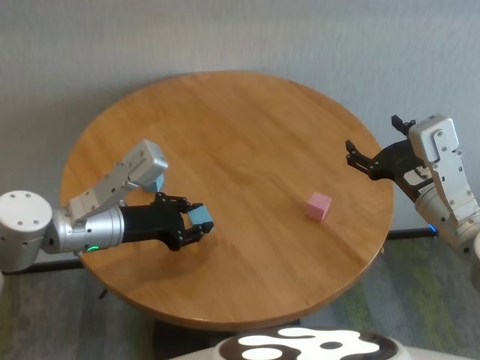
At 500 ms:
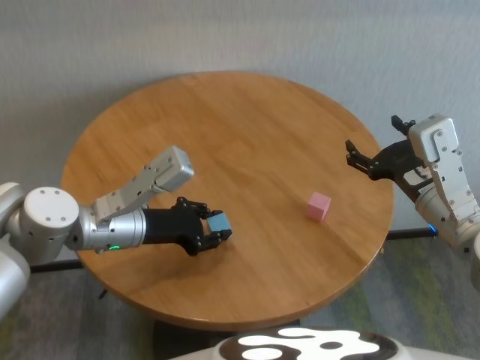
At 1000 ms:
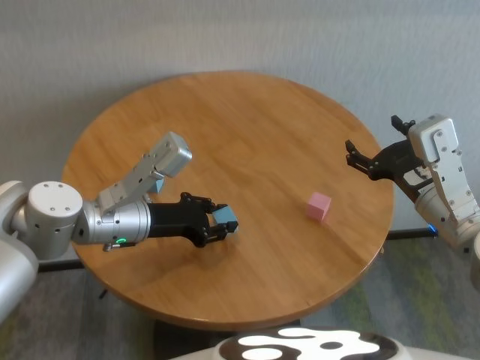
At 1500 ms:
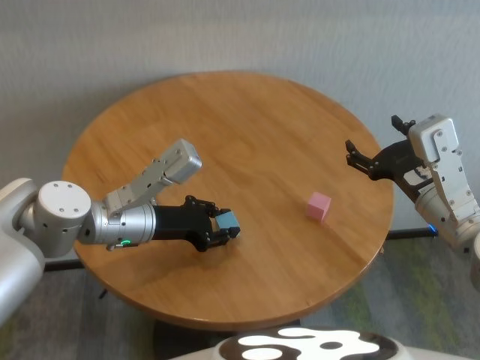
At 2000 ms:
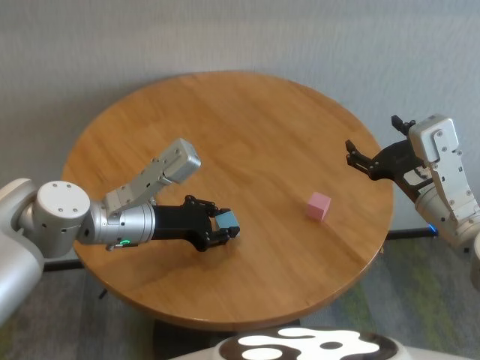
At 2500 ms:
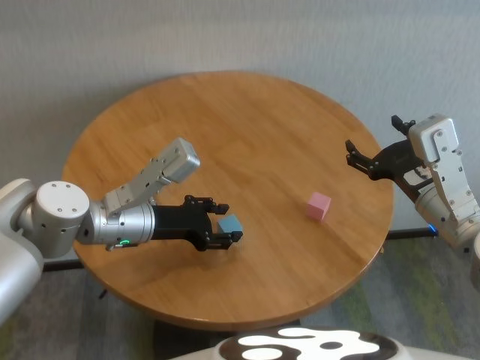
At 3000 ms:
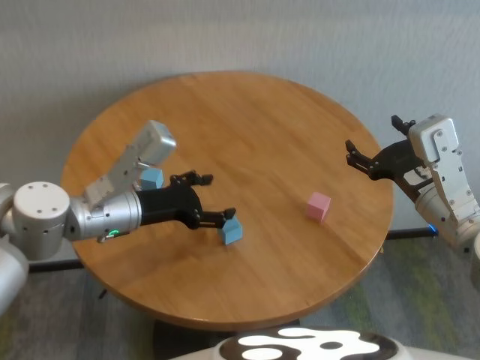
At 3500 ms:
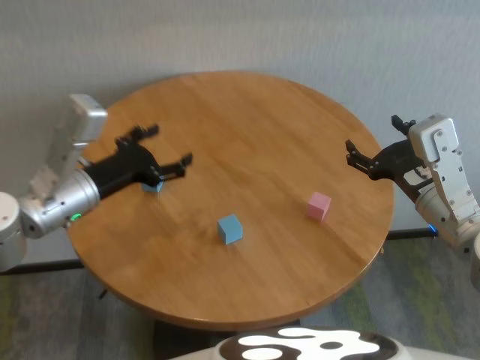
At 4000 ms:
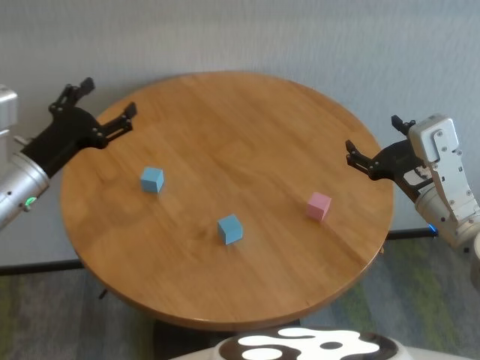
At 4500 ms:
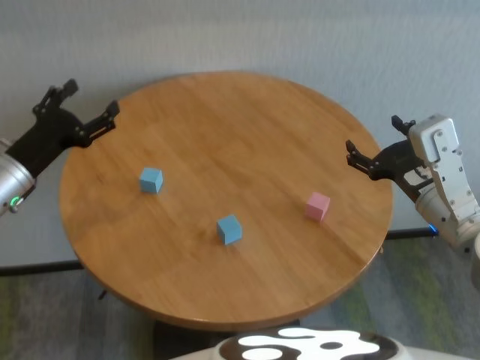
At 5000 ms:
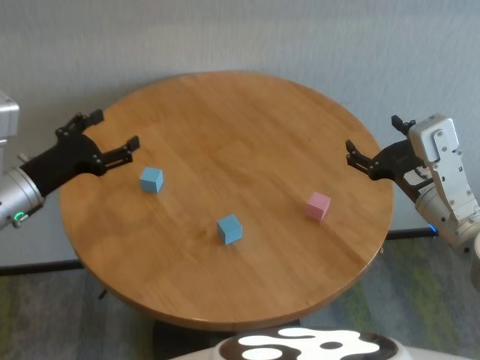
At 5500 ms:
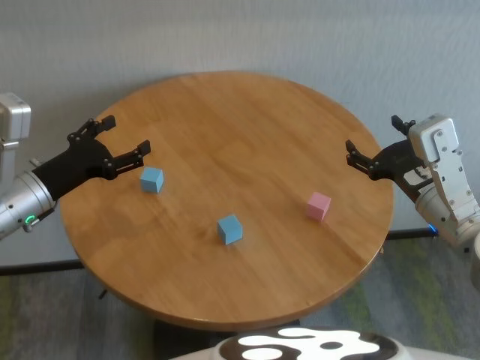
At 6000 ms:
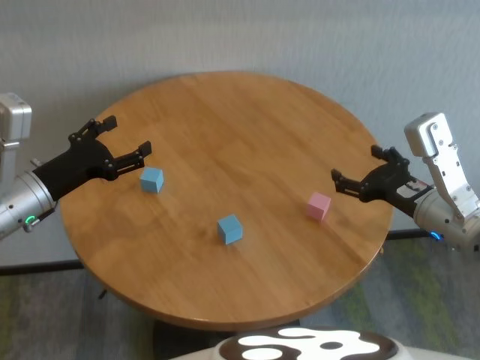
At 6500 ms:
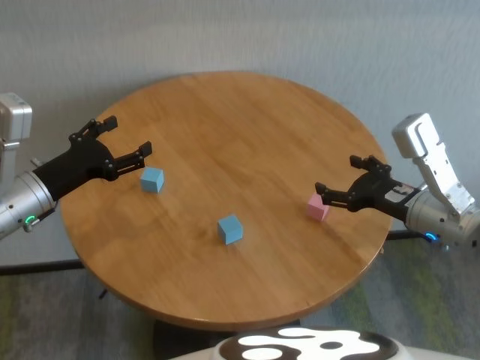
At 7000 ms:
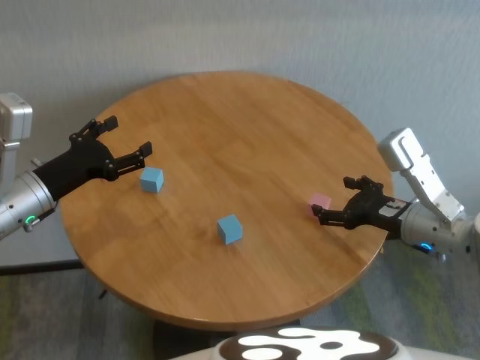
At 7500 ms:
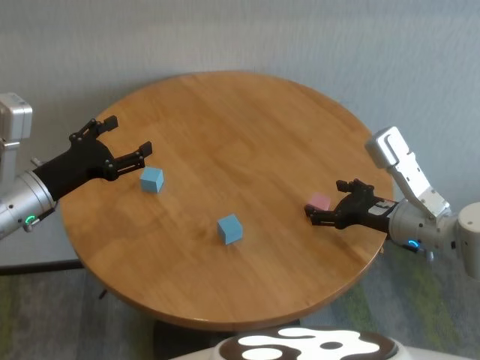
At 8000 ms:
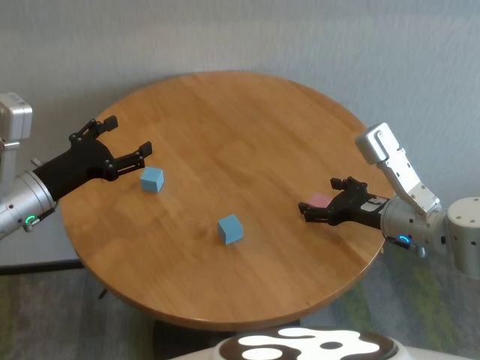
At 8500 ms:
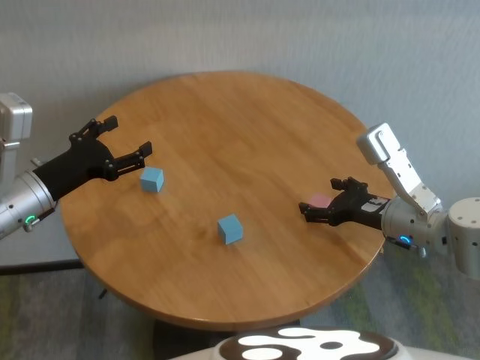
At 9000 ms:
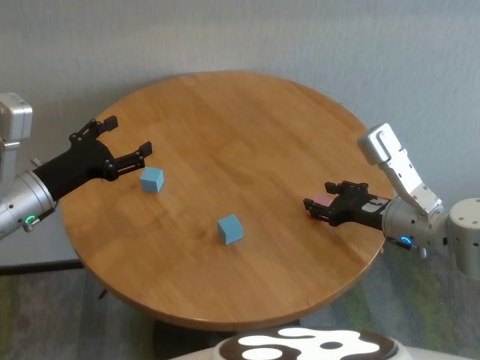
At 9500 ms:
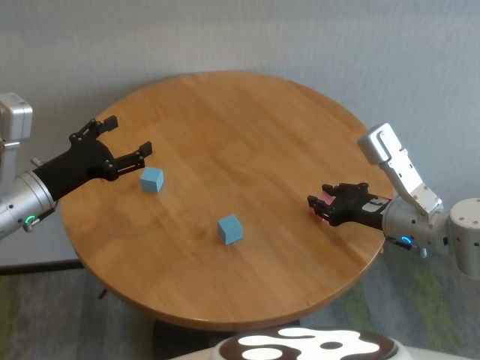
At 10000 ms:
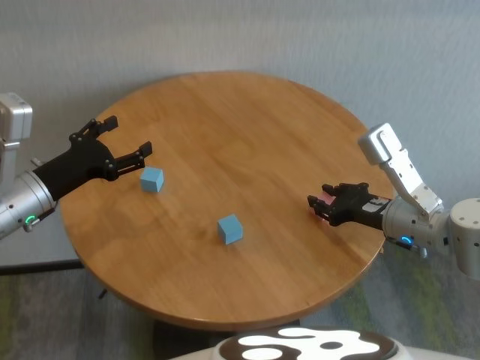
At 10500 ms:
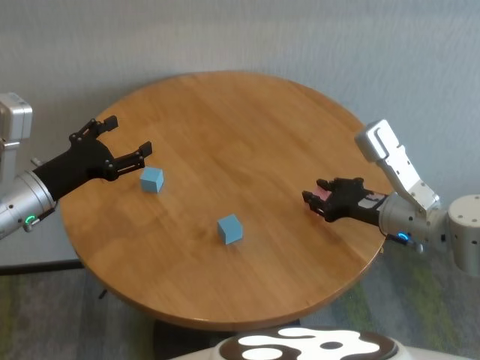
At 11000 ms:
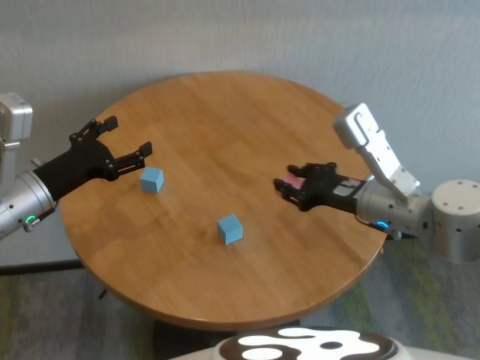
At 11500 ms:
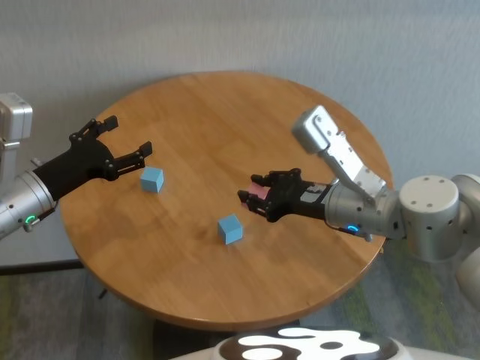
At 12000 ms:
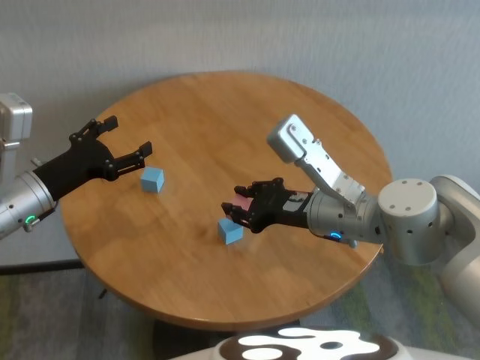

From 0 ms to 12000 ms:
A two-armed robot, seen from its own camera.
Task of the whole recording: stack building blocks on the table.
Step, from 0 ms to 2500 ms: Place the blue building block in the center of table with left gripper.

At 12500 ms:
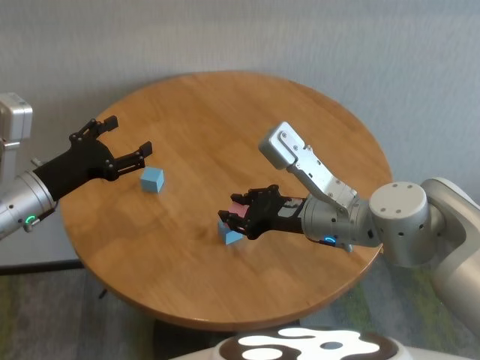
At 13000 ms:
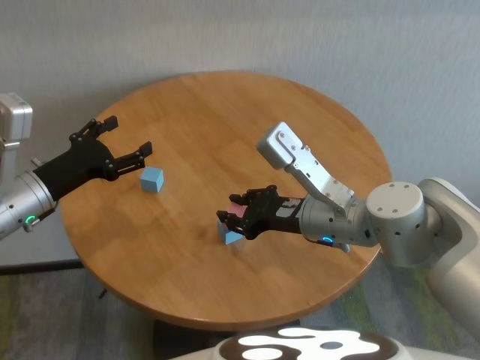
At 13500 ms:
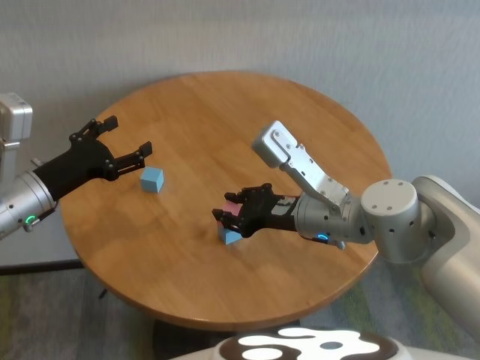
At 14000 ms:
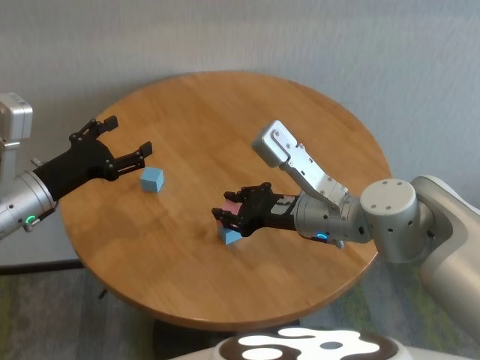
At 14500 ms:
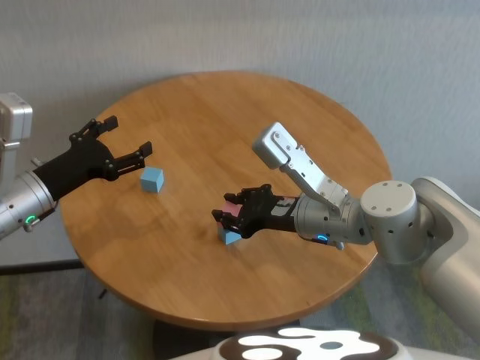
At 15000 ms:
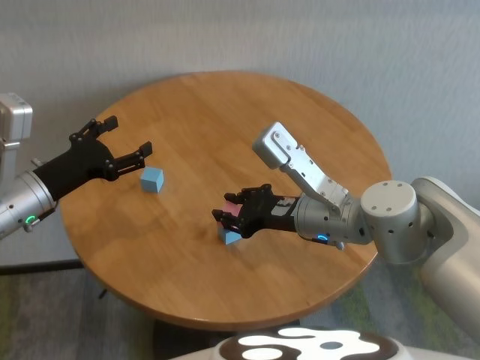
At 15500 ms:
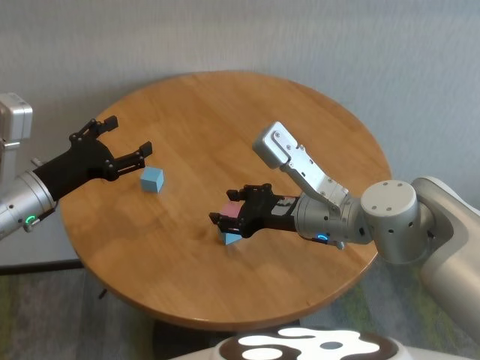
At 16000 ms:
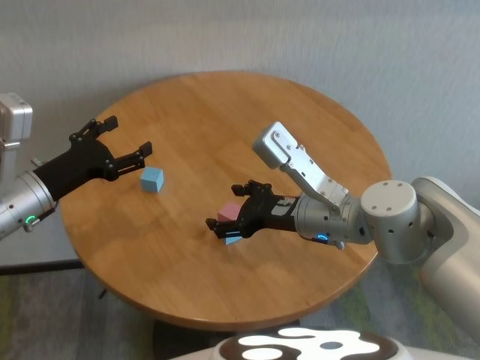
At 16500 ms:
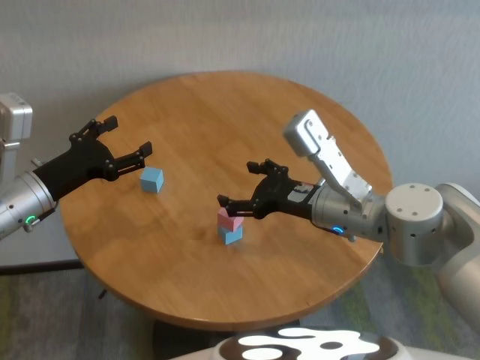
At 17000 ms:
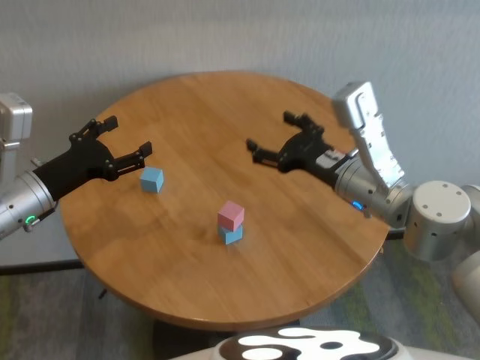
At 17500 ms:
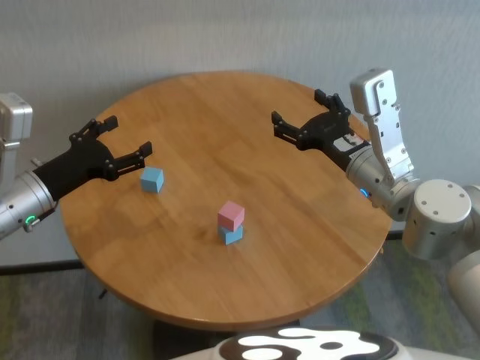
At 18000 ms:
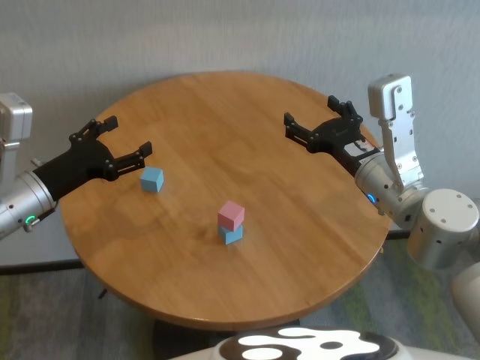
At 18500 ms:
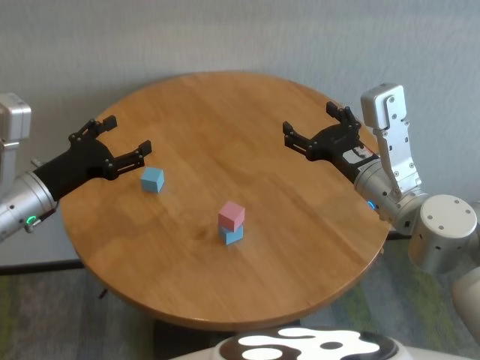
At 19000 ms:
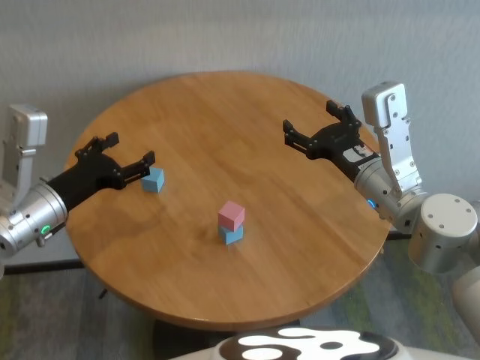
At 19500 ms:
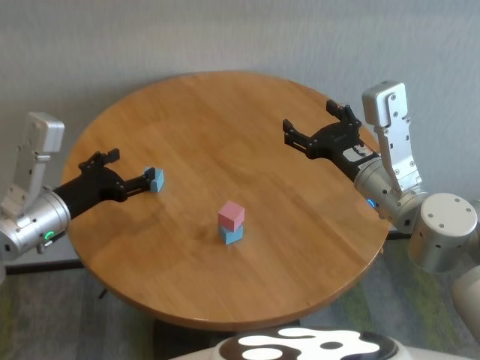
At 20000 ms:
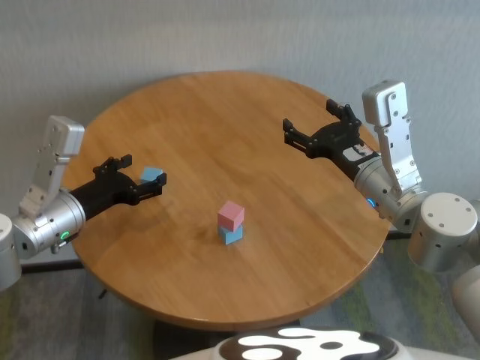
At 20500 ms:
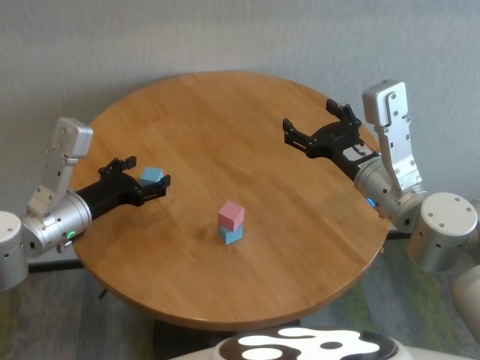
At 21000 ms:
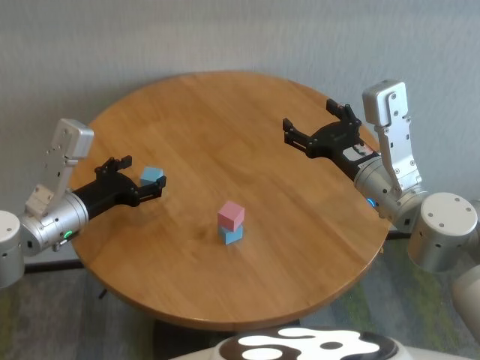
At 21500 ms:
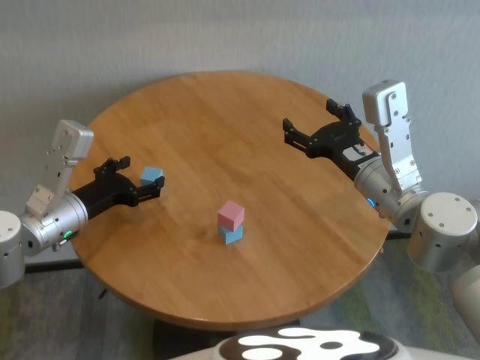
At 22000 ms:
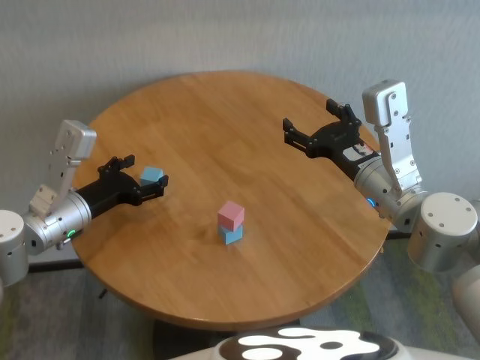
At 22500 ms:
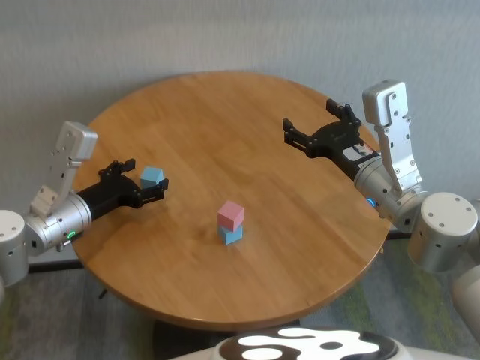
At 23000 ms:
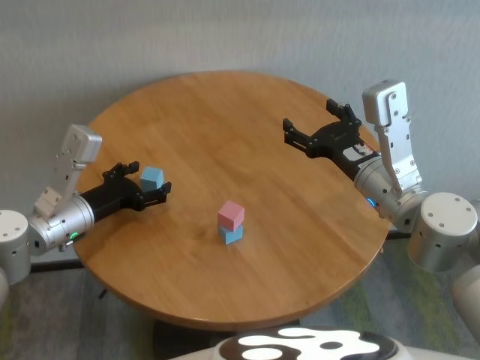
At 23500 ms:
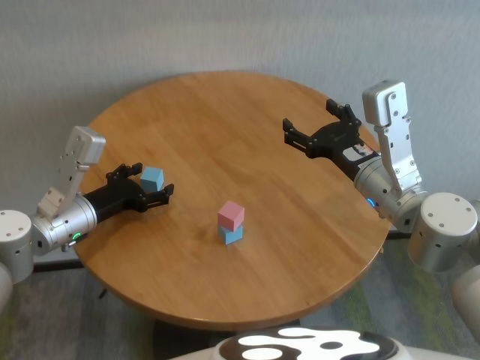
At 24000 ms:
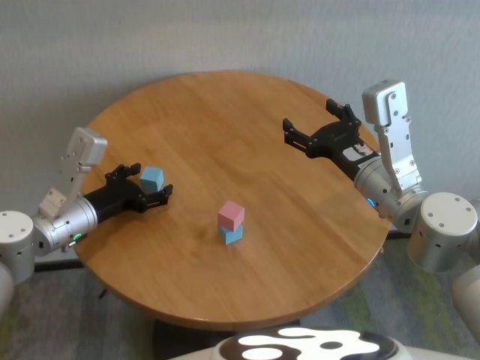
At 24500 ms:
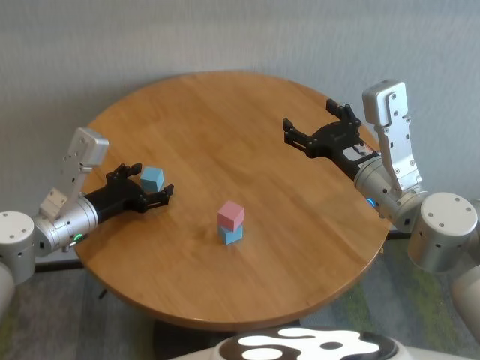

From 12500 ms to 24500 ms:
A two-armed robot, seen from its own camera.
Task of the whole recording: stack building blocks on the table.
Step, from 12500 ms to 16000 ms: Place the pink building block on the blue building blocks with right gripper.

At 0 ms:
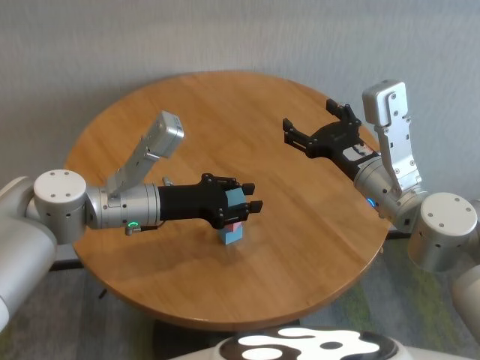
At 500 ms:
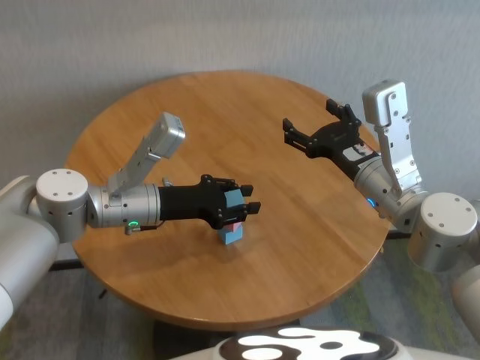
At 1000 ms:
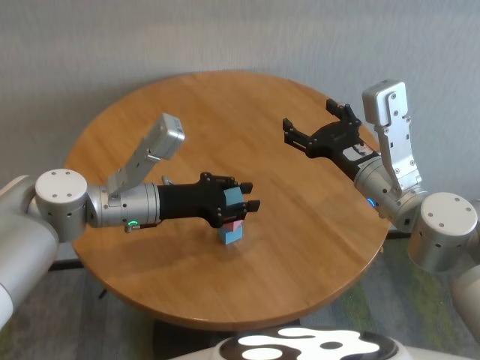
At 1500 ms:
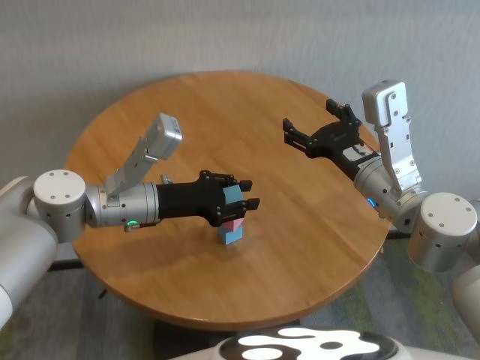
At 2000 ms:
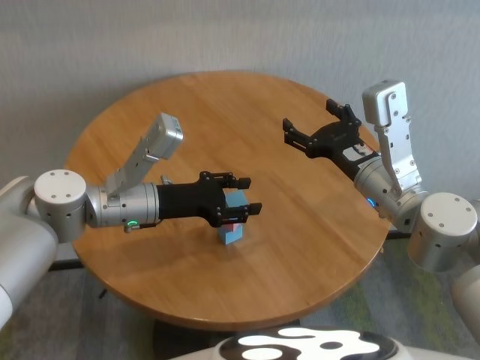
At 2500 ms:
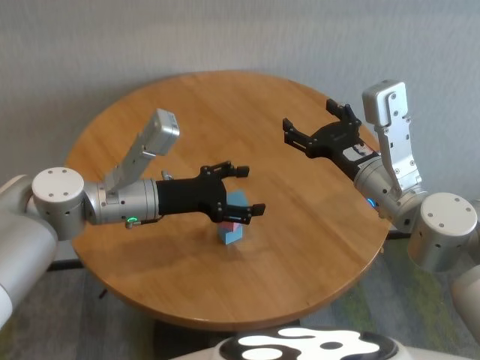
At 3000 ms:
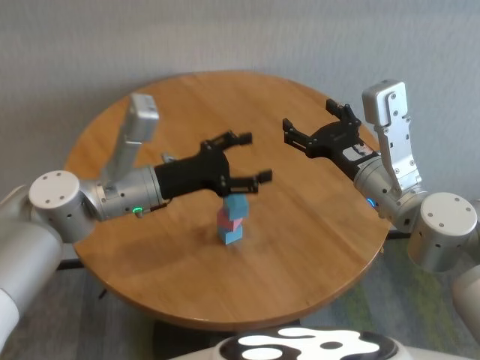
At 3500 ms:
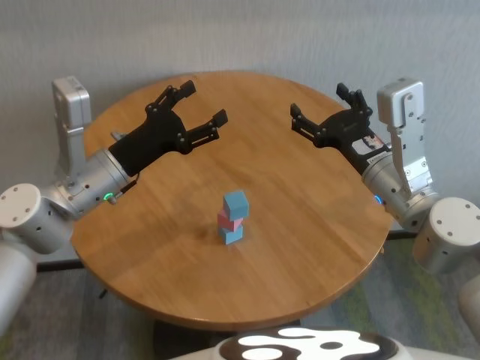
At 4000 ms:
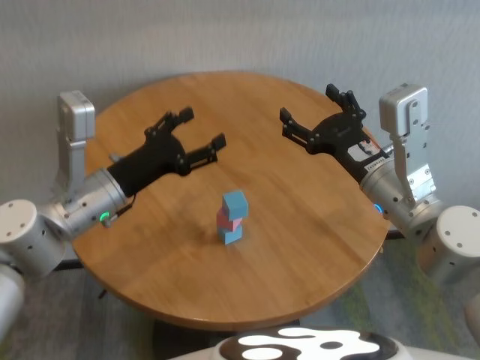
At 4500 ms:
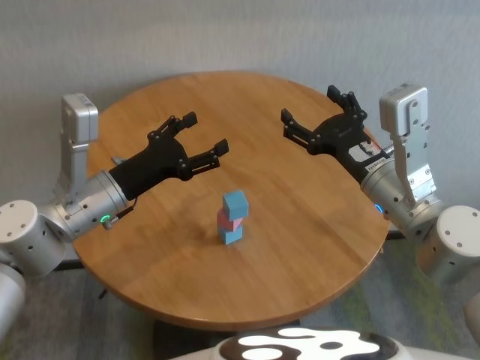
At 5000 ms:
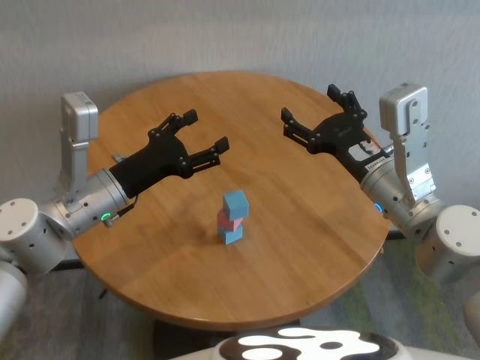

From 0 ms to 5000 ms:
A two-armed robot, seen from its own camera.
Task of the whole recording: stack building blocks on the table.
Step, from 0 ms to 2000 ms: Place the blue building block on the pink building blocks with left gripper.
